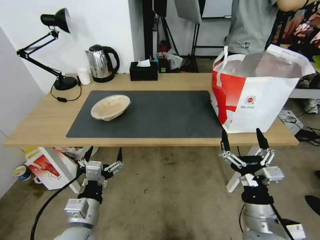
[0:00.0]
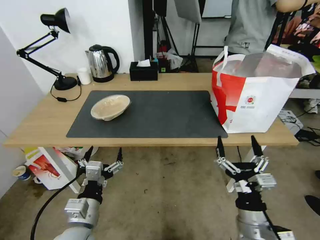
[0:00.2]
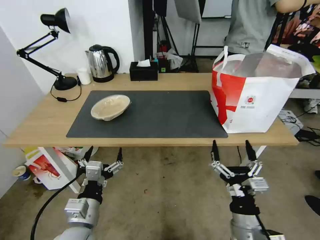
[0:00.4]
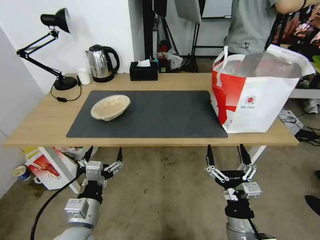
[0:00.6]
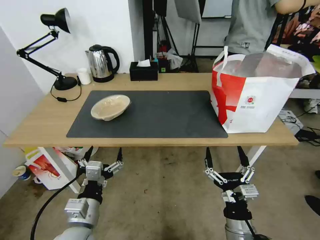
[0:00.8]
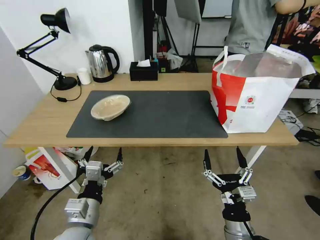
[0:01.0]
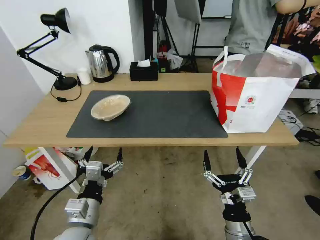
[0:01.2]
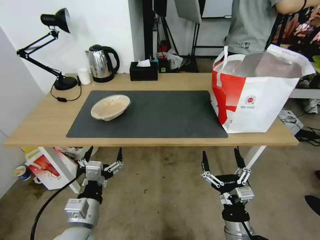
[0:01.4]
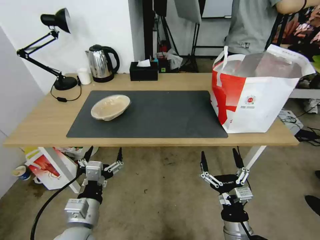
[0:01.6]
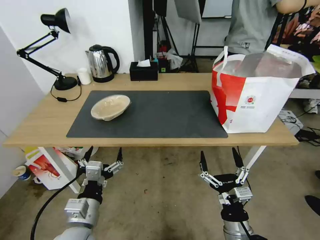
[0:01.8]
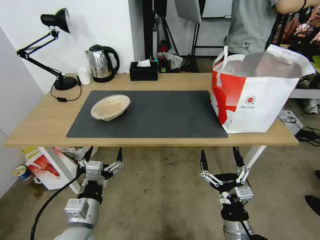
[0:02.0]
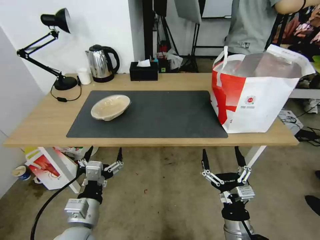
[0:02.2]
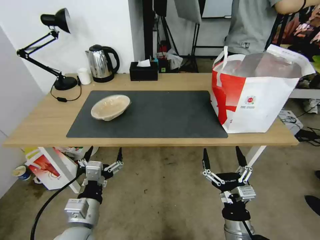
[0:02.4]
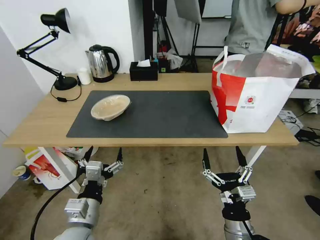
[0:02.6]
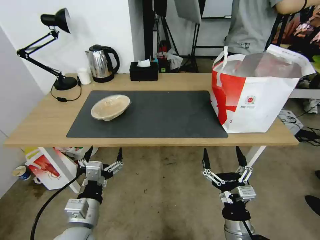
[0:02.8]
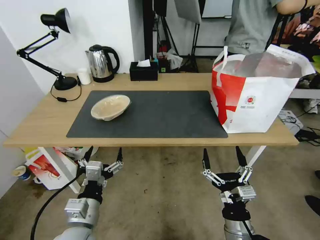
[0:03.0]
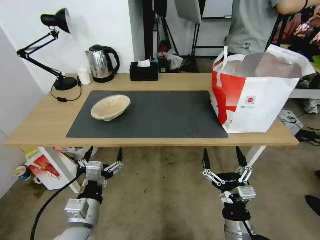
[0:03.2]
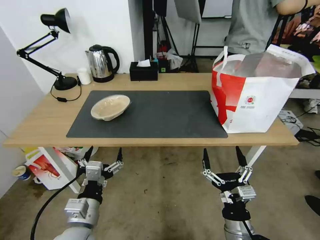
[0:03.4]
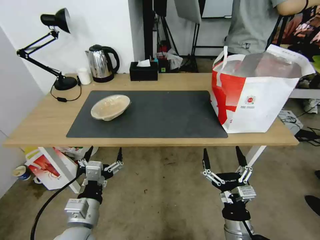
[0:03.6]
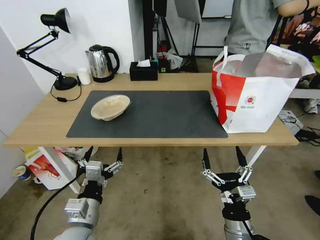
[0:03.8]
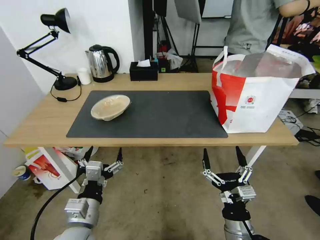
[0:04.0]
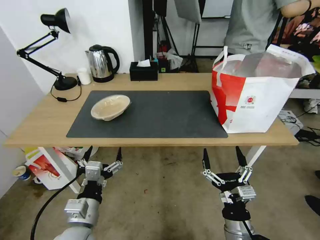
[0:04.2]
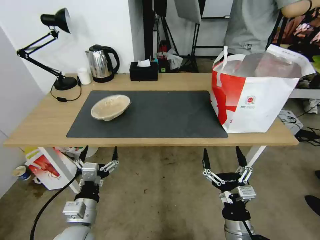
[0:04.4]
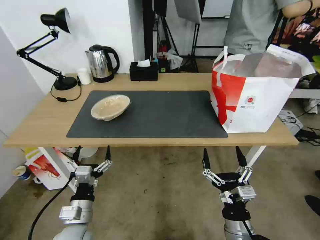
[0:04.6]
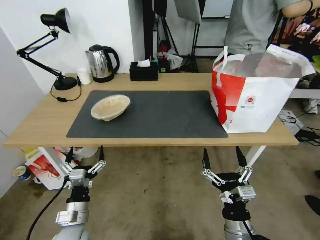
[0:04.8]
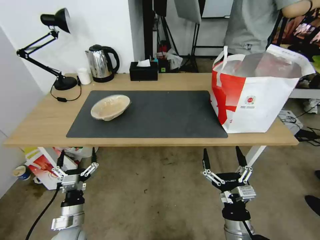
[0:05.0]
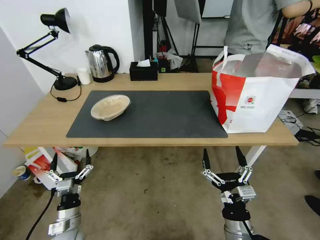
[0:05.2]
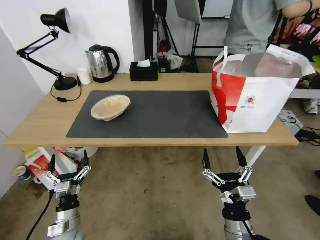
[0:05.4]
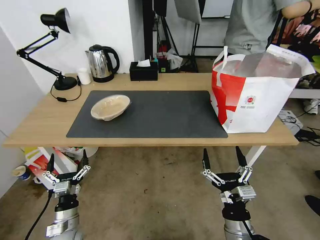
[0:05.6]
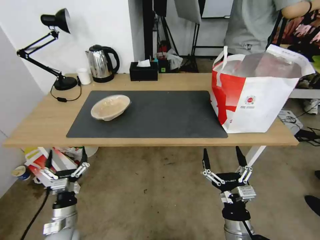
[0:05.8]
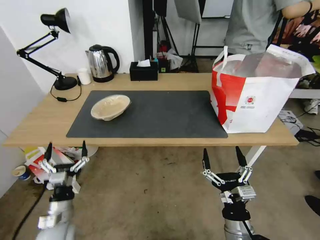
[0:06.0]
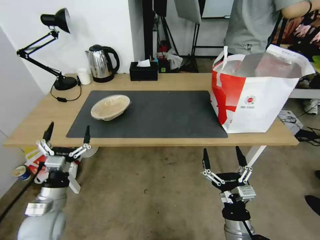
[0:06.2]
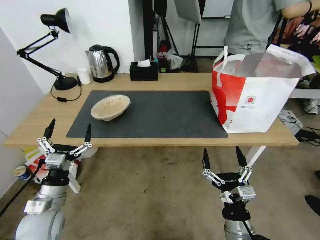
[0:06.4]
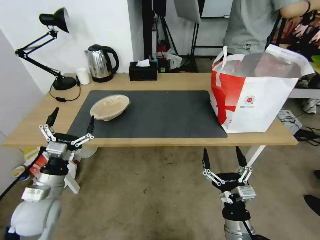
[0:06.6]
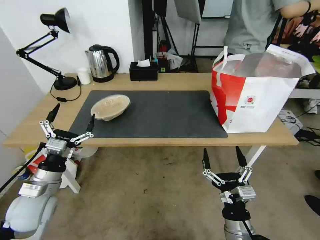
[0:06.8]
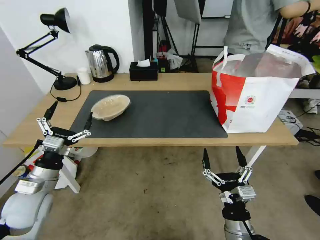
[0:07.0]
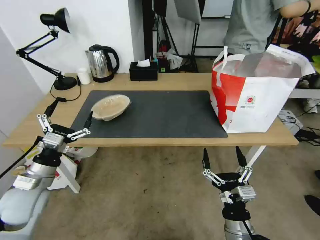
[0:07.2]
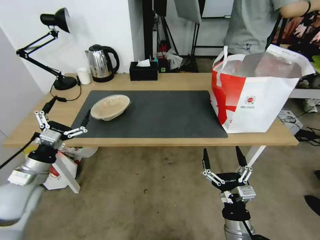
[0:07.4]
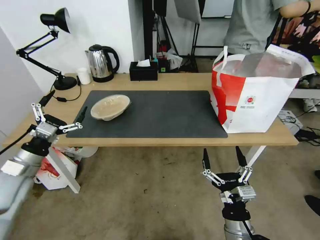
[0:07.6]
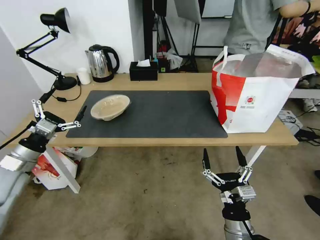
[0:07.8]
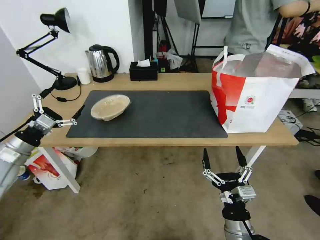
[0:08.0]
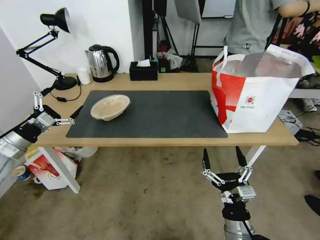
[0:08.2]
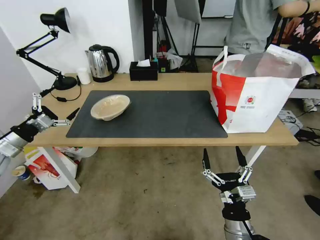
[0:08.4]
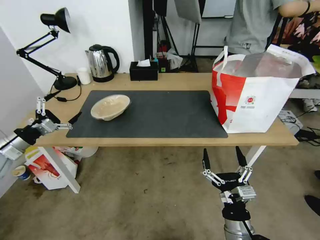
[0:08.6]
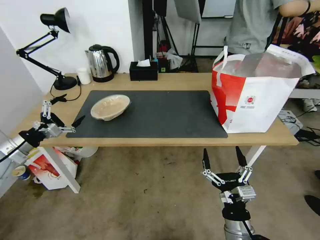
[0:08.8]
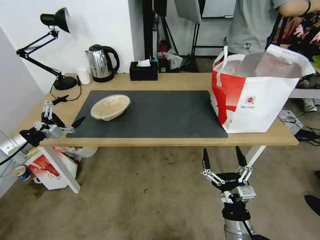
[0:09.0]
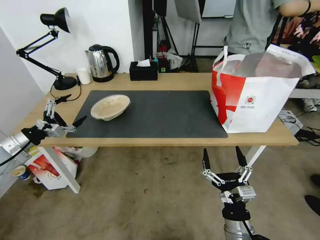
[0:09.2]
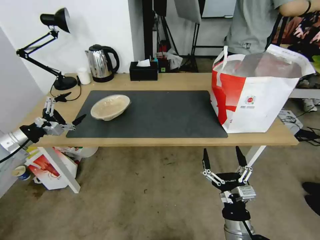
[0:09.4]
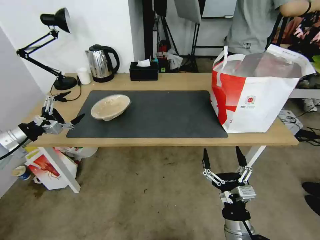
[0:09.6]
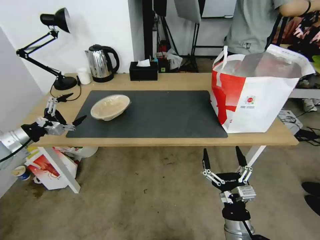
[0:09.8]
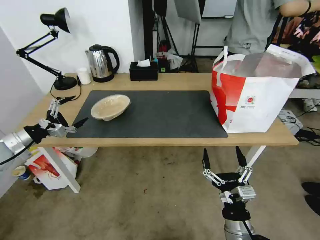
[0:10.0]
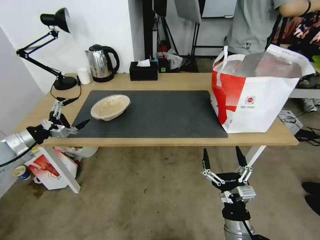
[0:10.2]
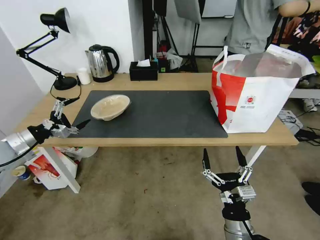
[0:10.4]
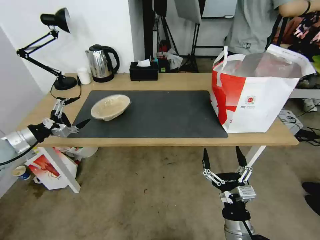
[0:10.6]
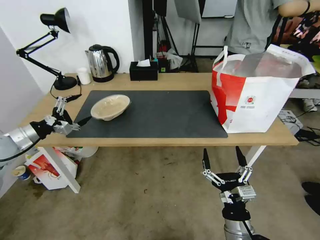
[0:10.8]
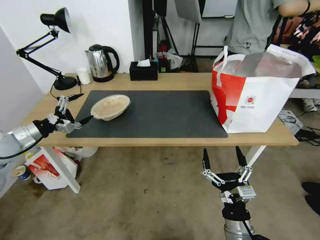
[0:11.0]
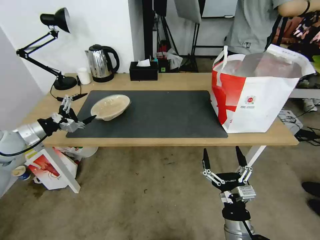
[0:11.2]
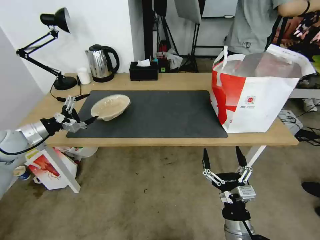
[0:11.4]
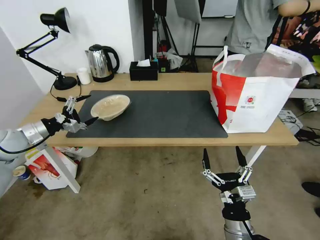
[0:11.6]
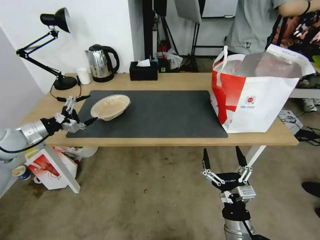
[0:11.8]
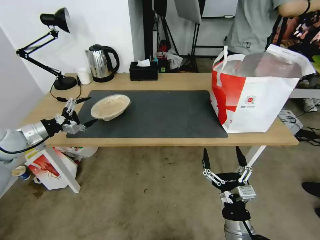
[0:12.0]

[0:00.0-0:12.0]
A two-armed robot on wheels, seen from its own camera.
Task of the whole recording: Pick up the trash from the table and place it into the takeout bag.
0:00.0 to 0:01.6: The right gripper moves downward, some 5 cm.
0:01.6 to 0:03.0: Neither gripper changes place.
0:03.0 to 0:04.4: The grippers stay close to where they were, moving slightly.
0:04.4 to 0:06.0: The left gripper shifts some 15 cm downward and to the left.
0:06.0 to 0:07.6: The left gripper moves upward, to the left and forward, some 25 cm.
0:07.6 to 0:09.0: The left gripper shifts some 10 cm to the left and forward.
0:09.0 to 0:10.4: The grippers make only small movements.
0:10.4 to 0:12.0: The grippers make only small movements.

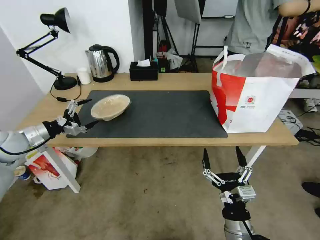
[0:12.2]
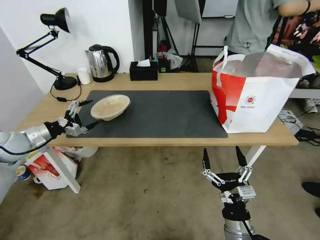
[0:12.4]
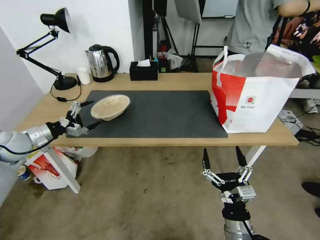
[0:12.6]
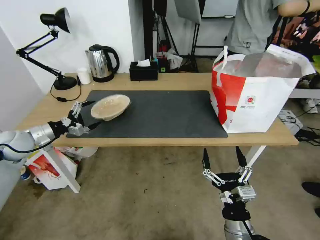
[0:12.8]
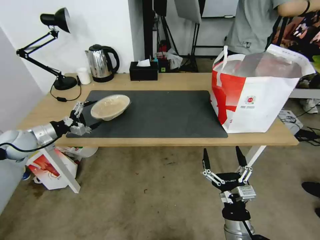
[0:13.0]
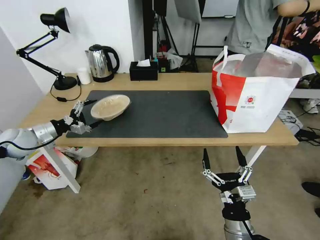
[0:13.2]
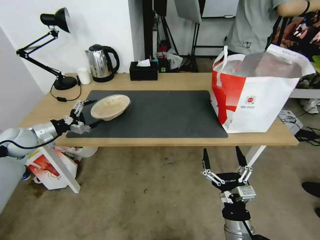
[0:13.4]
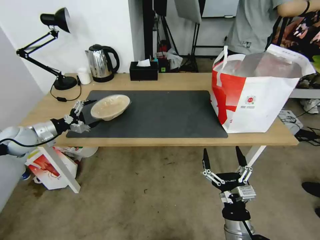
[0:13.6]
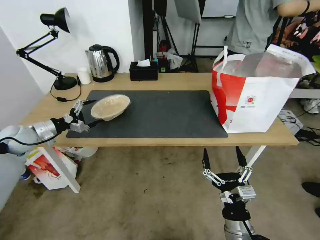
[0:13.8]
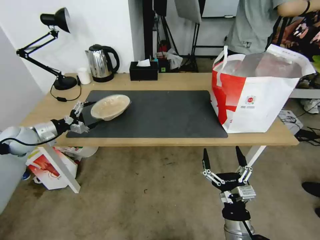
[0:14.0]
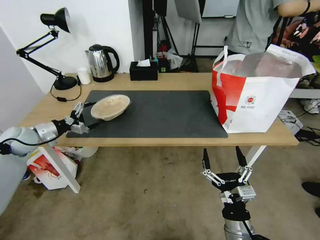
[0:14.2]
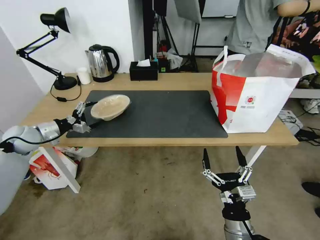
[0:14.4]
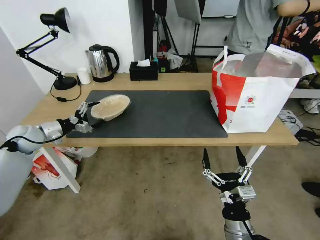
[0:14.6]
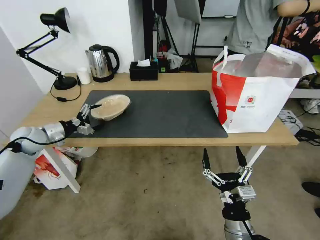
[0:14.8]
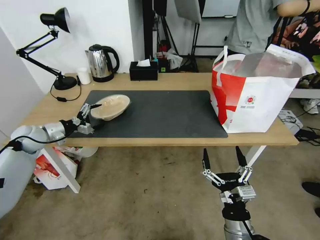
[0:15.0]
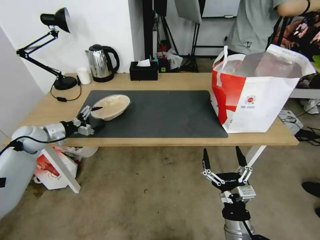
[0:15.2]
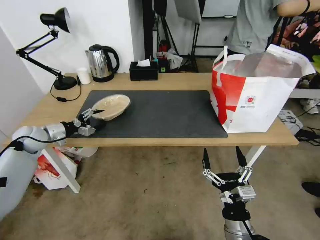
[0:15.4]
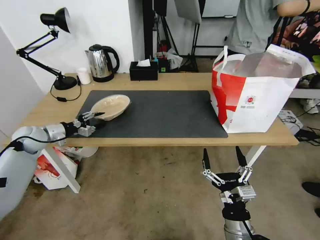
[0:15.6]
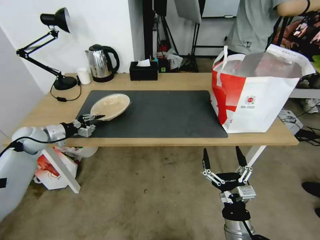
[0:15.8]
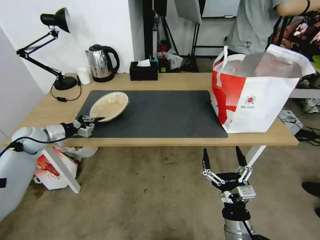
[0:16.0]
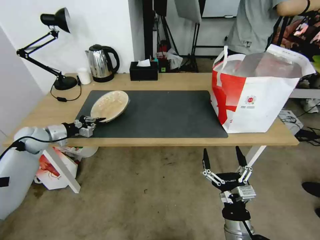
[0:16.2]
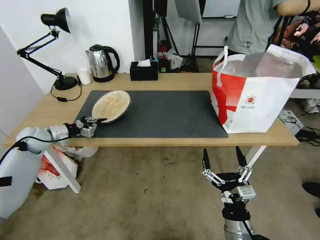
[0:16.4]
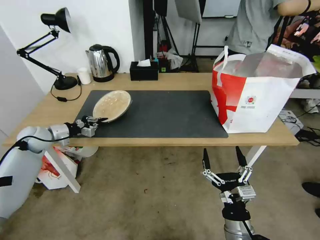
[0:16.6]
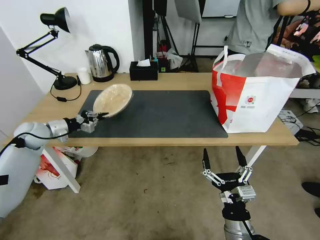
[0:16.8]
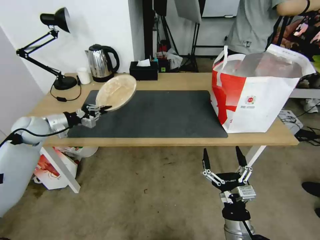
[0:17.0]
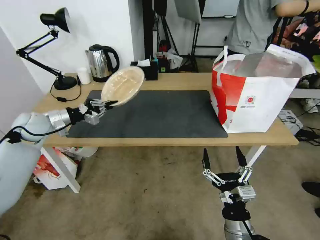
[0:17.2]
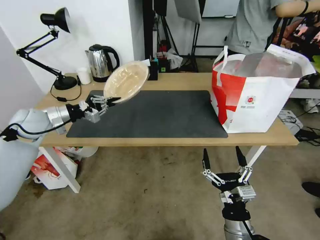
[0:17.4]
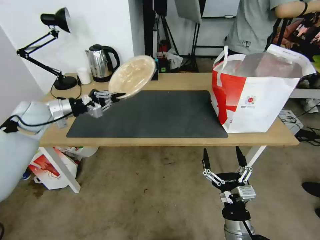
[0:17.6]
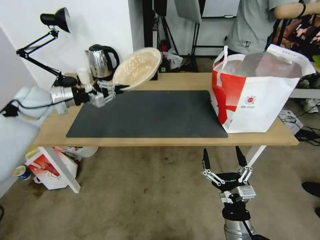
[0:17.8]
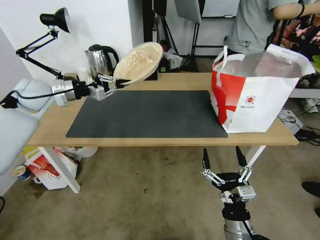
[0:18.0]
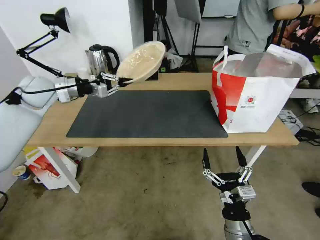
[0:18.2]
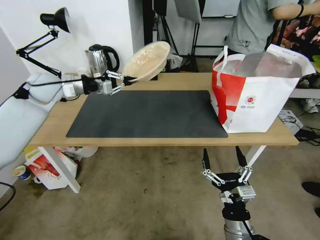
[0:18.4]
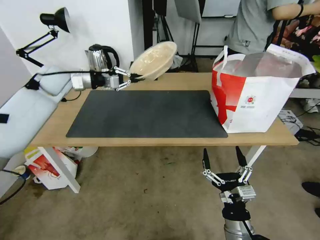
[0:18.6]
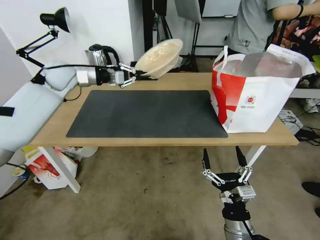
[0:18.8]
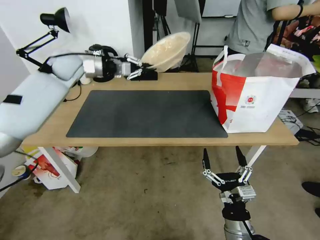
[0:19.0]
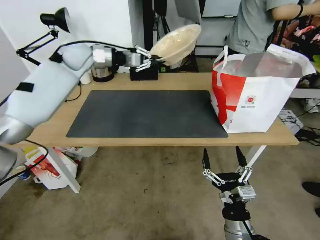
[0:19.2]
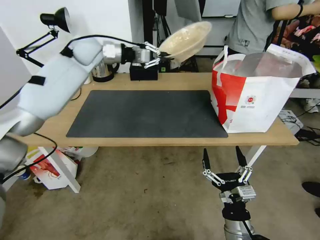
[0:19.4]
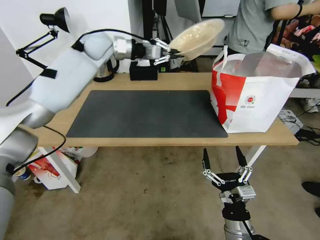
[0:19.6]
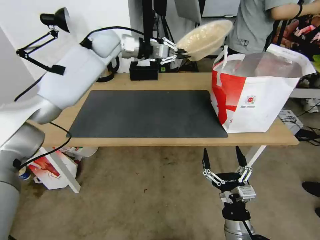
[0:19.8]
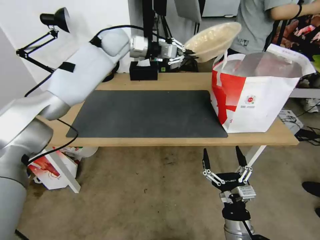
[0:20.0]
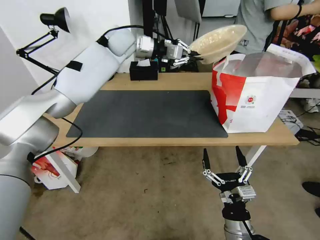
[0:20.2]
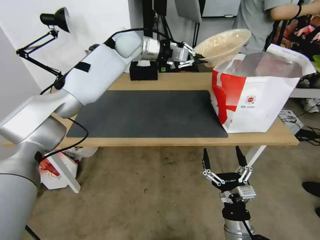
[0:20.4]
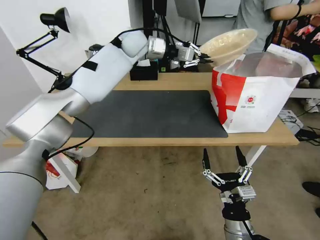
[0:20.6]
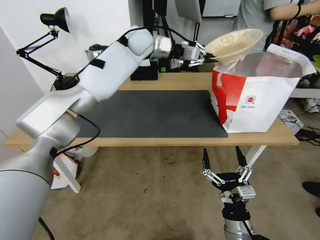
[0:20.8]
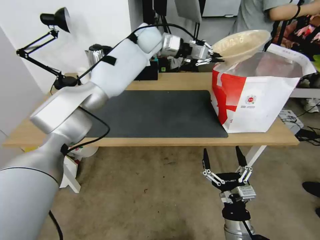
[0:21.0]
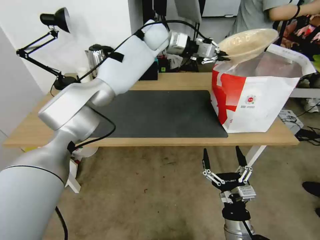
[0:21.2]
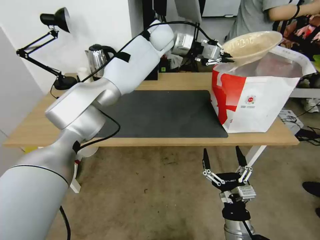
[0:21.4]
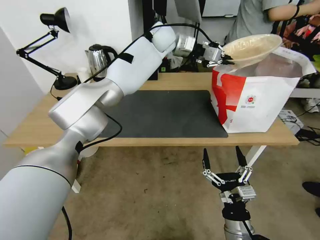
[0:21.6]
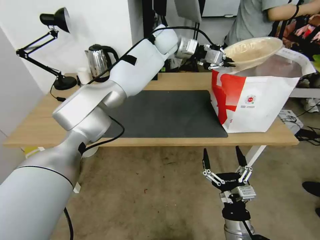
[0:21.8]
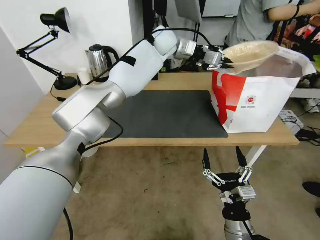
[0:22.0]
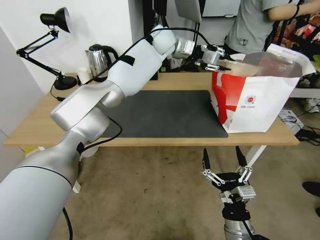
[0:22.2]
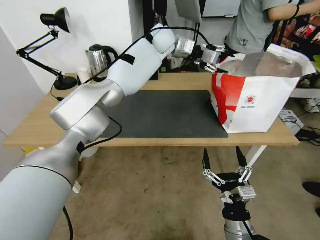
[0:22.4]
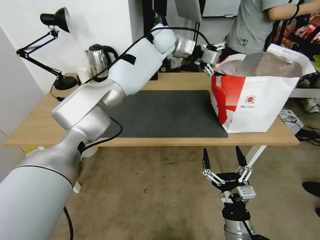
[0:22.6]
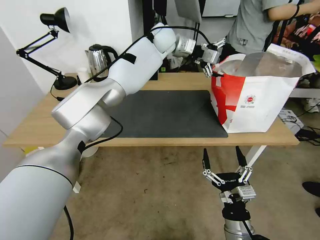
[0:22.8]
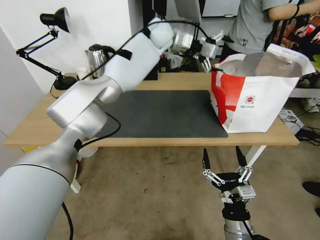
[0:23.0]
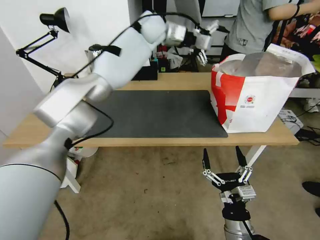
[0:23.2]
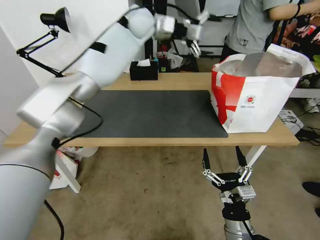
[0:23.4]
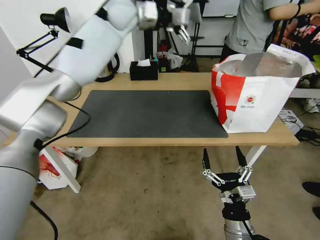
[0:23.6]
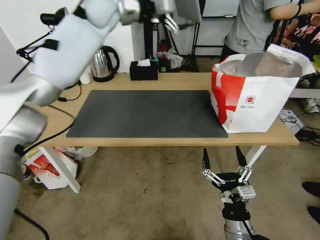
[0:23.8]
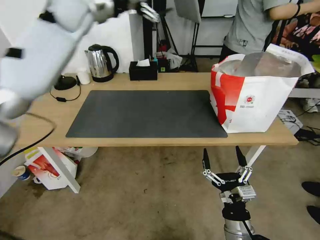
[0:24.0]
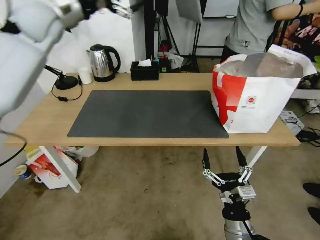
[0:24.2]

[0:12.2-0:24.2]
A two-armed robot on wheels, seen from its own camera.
Task of the whole recording: Pick up the trash from the table and place it into the takeout bag.
0:12.2 to 0:13.8: The grippers stay close to where they were, moving slightly.
0:13.8 to 0:15.2: The grippers make only small movements.
0:15.2 to 0:16.6: The left gripper closes its fingers.
0:16.6 to 0:18.2: The left gripper goes approximately 20 cm upward and to the right.
0:18.2 to 0:19.8: The left gripper heads to the right, forward and upward, covering about 25 cm.
0:19.8 to 0:21.2: The left gripper moves to the right, about 15 cm.
0:21.2 to 0:22.6: The left gripper opens its fingers.
0:22.6 to 0:24.2: The left gripper is displaced to the left by approximately 30 cm.
